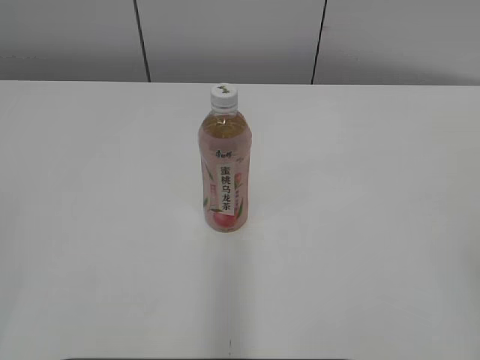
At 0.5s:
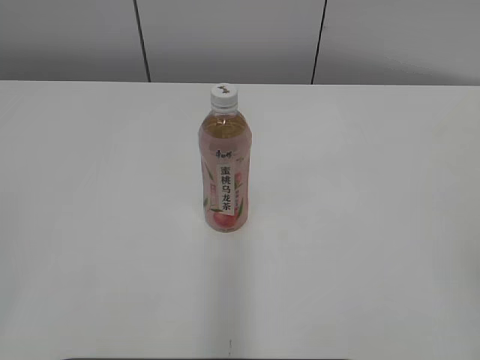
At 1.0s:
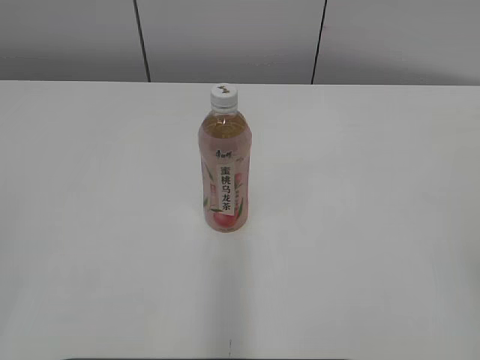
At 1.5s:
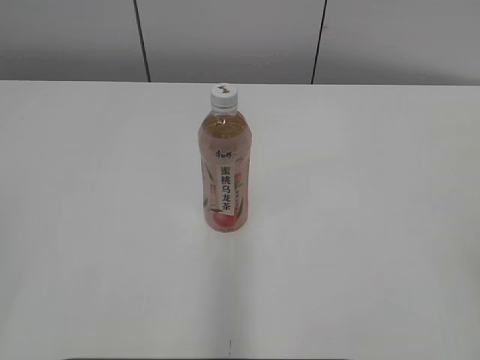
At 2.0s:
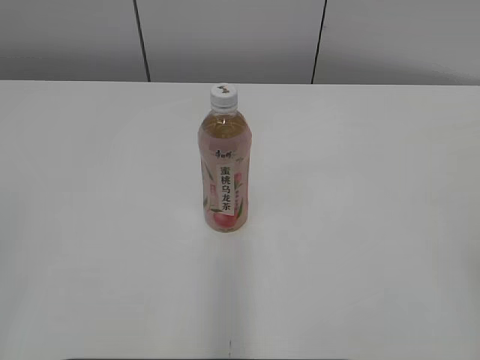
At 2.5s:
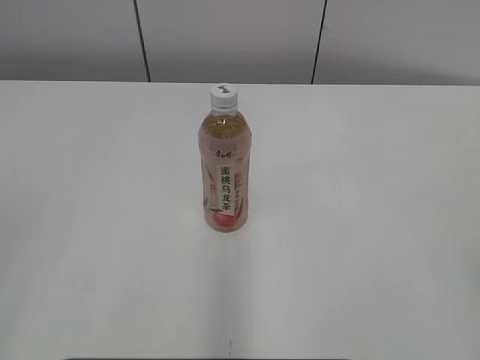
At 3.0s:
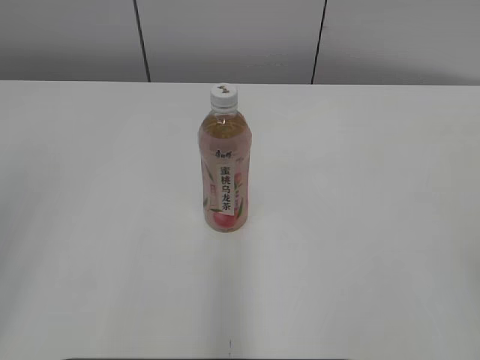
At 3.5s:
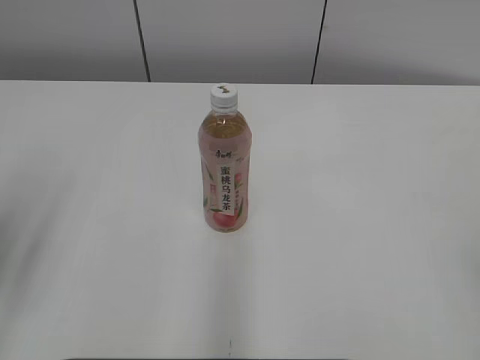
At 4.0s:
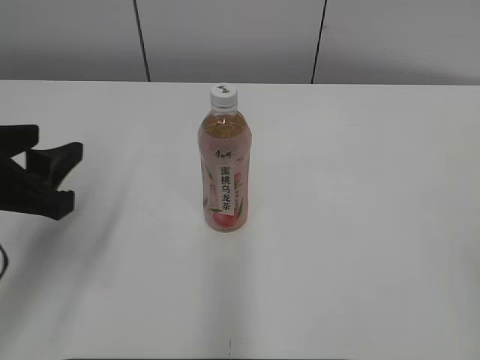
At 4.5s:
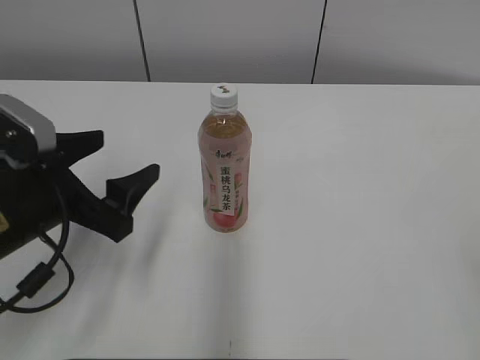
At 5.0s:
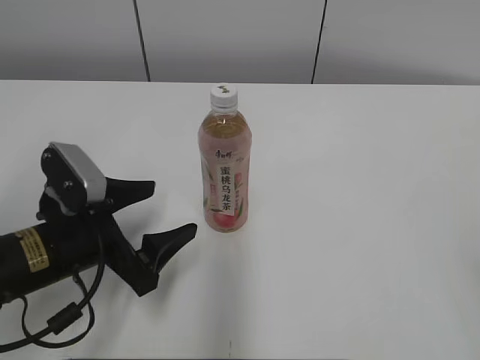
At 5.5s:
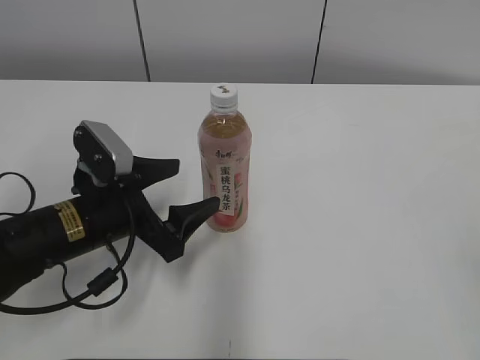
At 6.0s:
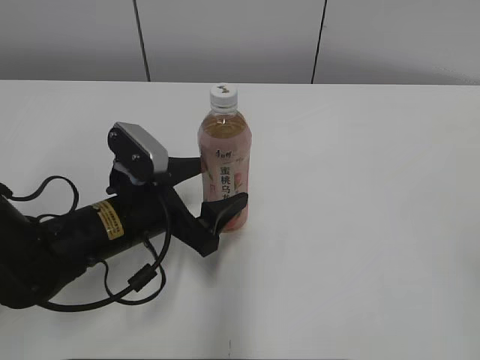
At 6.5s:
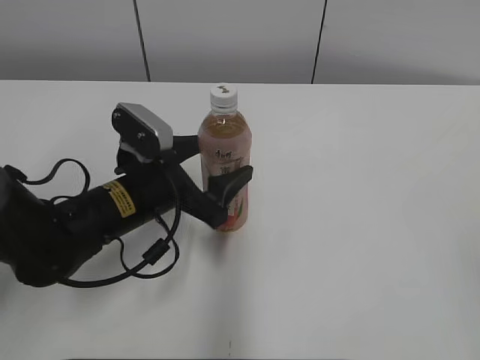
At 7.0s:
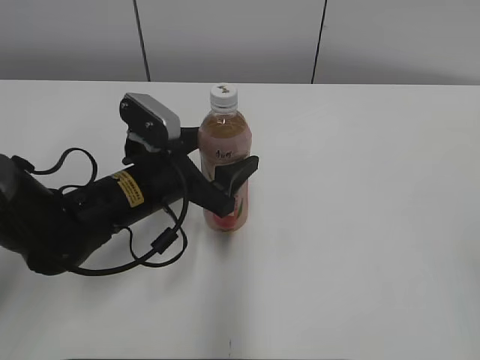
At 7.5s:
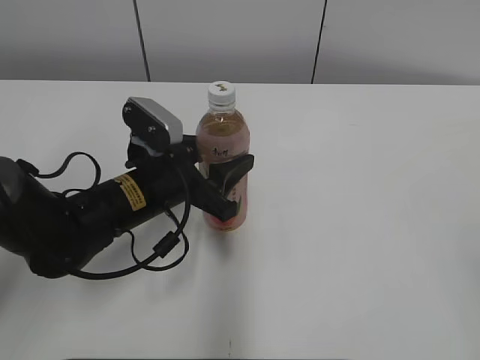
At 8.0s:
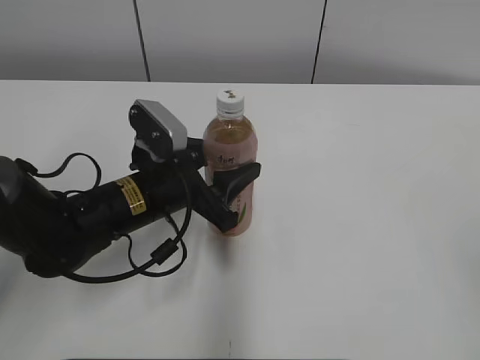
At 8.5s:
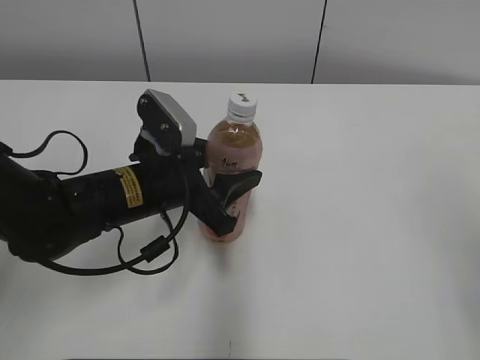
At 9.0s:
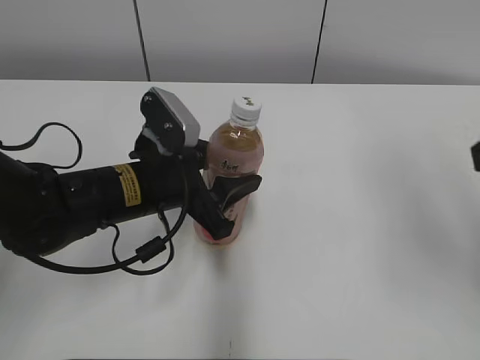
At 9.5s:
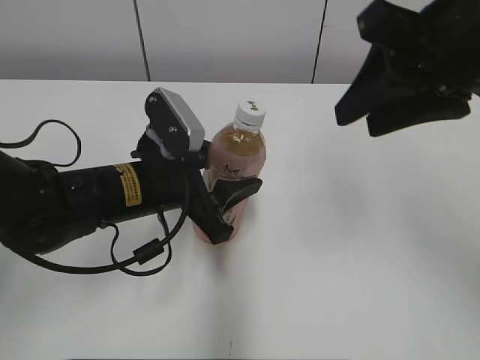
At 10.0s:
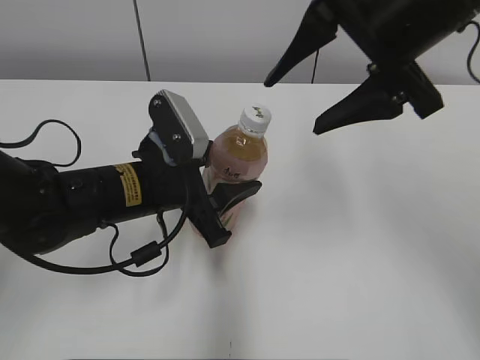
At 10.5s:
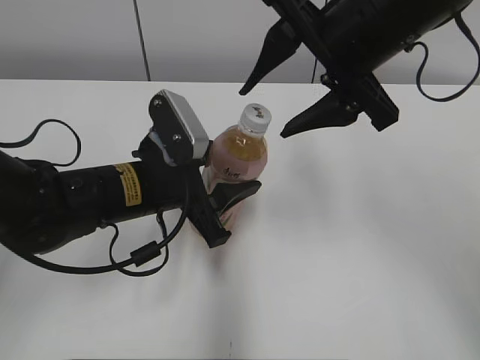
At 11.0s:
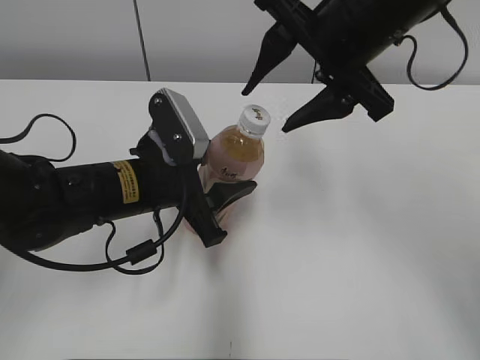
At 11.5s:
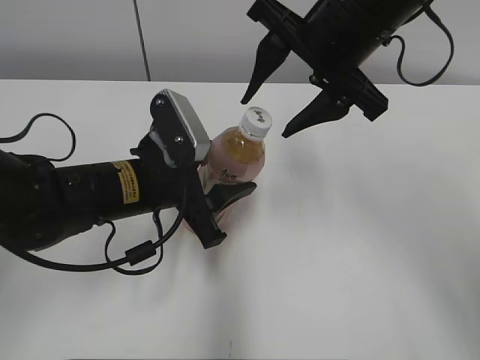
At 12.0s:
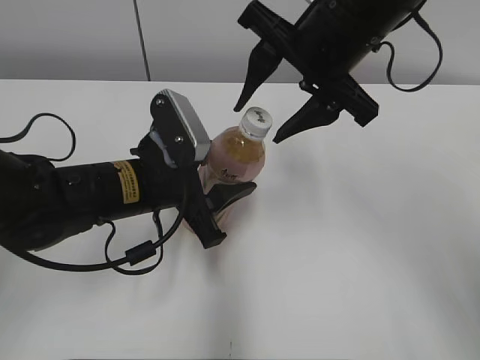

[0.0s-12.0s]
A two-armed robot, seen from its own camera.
Step, 0.0s to 7.5s: Grab the Peach Oolong Tea with the left hand.
2.0s to 4.0s: The left gripper goes about 20 cm forward and downward.
4.0s to 6.0s: The left gripper heads to the right, downward and forward, covering about 20 cm, and opens its fingers.
6.0s to 8.0s: The left gripper closes.
8.0s to 10.0s: The right gripper heads forward and to the left, covering approximately 35 cm, and opens.
10.0s to 12.0s: The right gripper shifts by about 5 cm.

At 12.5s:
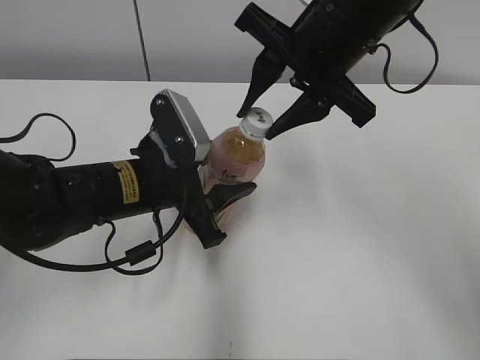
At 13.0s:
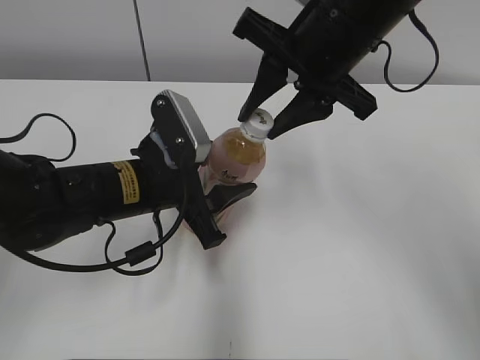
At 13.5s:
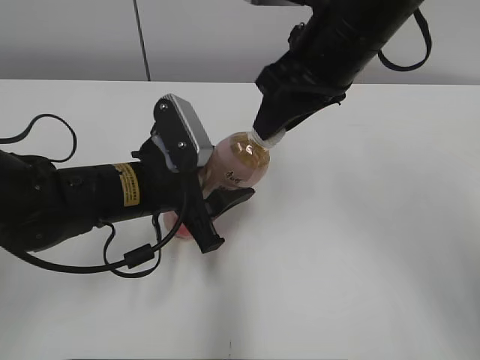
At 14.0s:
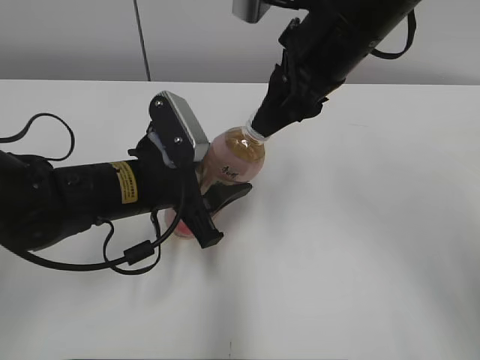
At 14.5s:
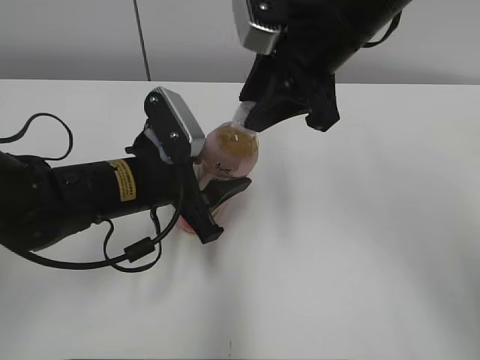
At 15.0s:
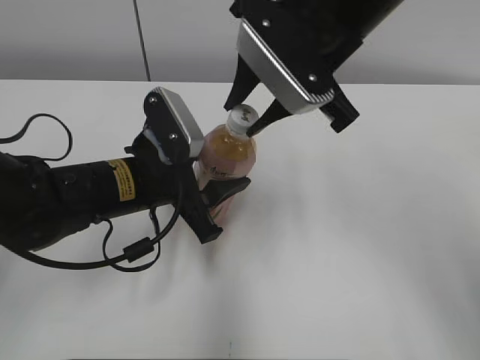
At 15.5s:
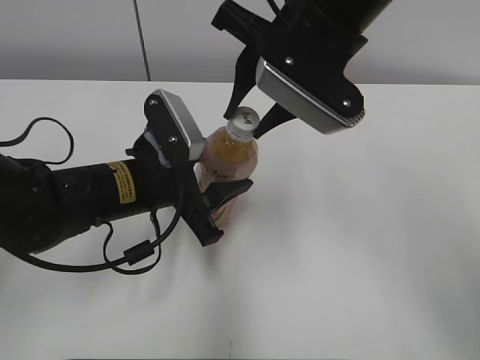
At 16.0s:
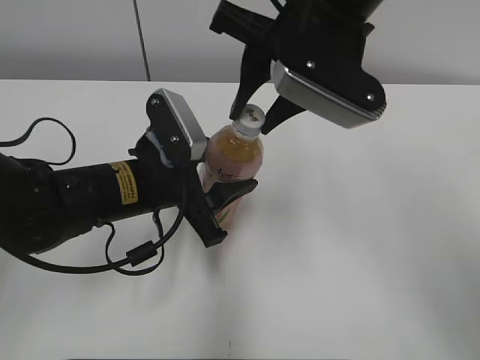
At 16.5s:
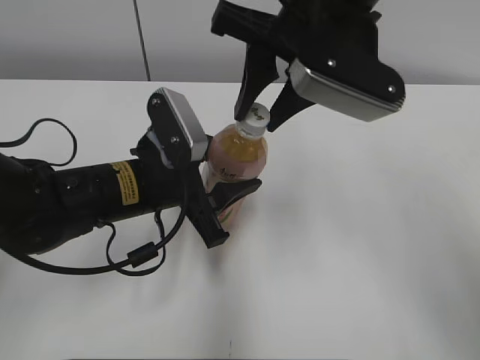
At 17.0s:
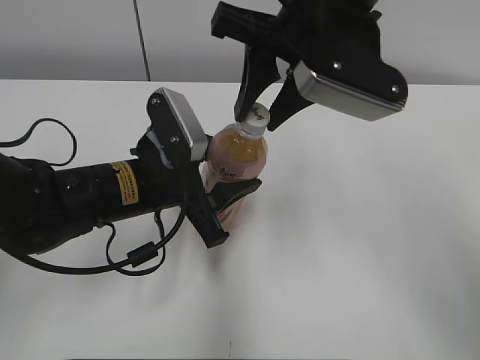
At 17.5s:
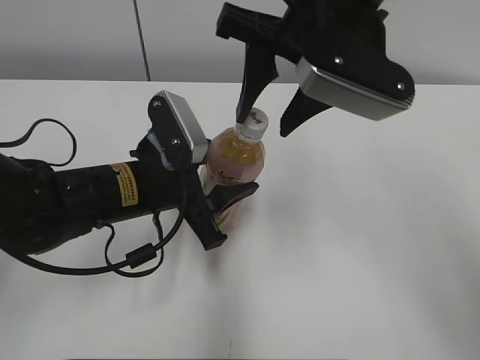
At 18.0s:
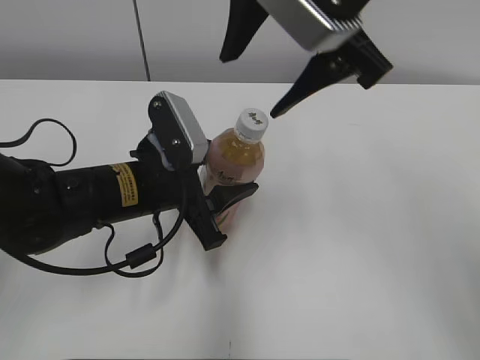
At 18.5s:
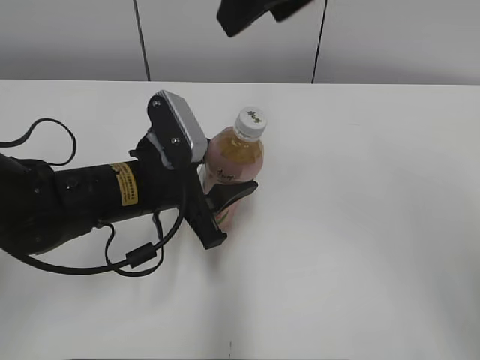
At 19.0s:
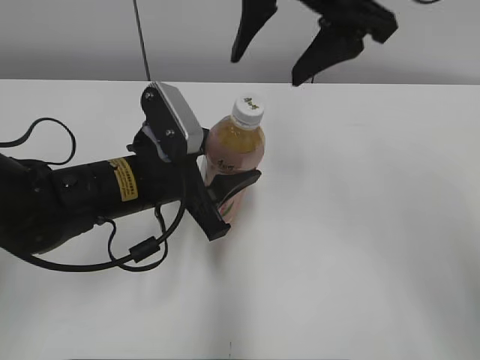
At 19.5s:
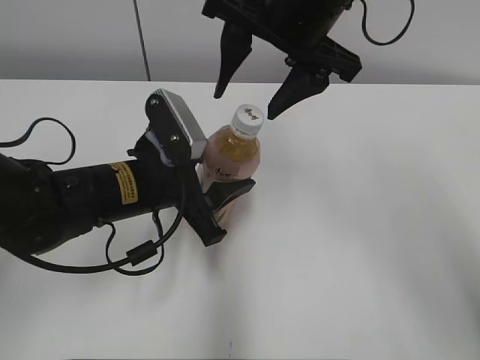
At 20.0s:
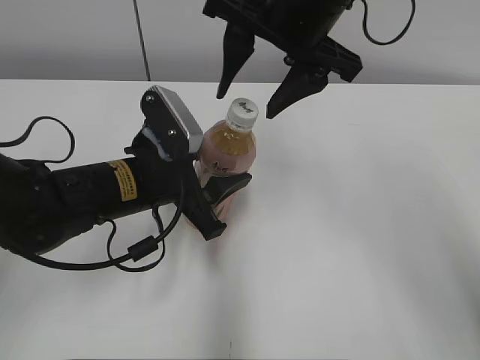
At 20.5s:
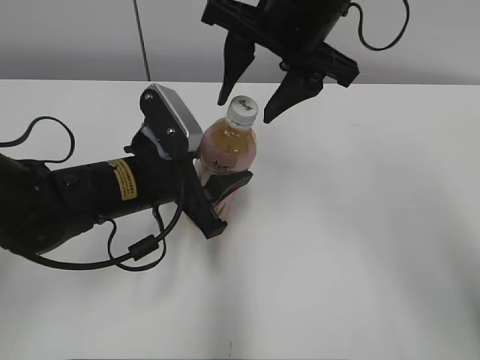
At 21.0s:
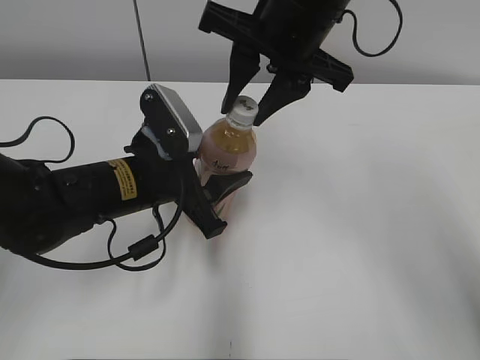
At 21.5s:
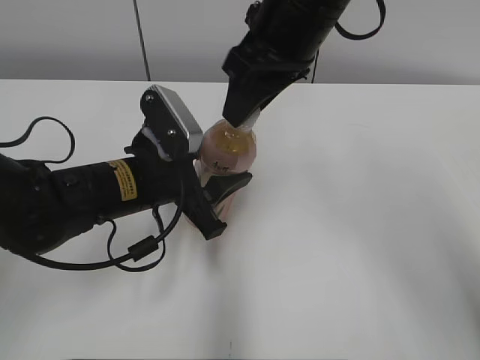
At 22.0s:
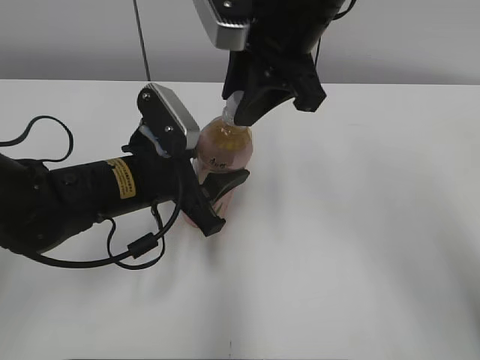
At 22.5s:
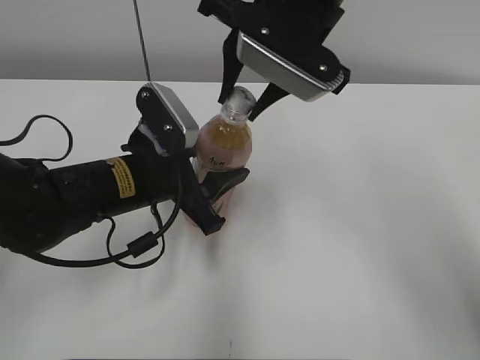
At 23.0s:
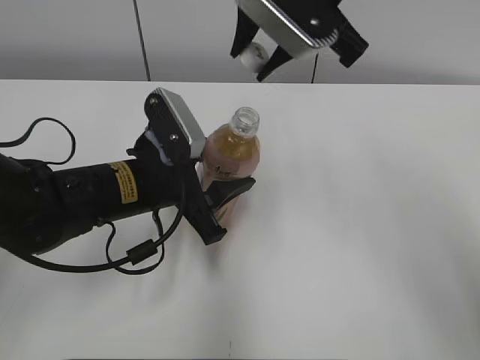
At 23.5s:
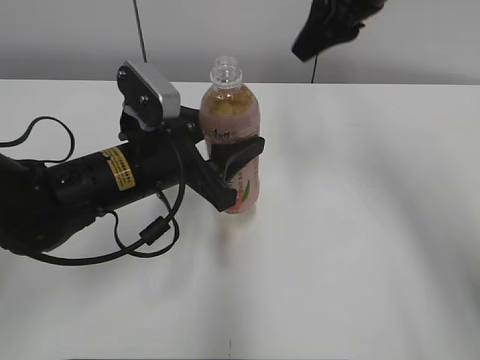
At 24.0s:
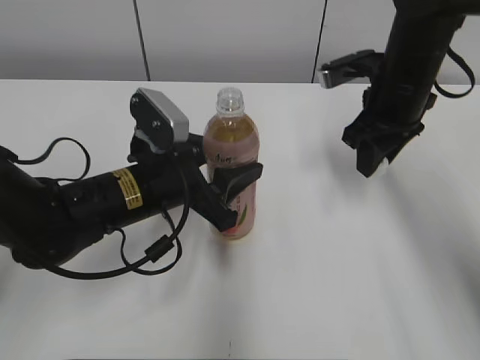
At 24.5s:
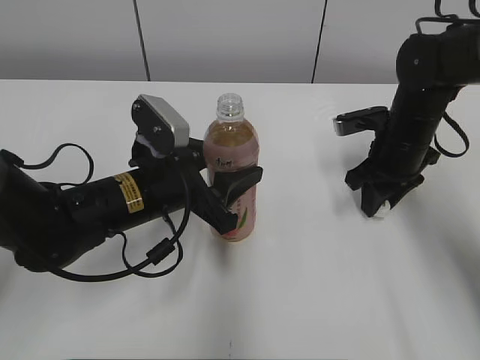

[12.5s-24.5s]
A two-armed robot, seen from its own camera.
Step, 13.0s to 22.5s: Secure the Peach Oolong Tea with the left hand.
16.5s to 18.5s: The right gripper goes some 5 cm upward, and opens its fingers.
18.5s to 20.5s: The right gripper heads downward, covering about 10 cm, and closes up.
20.5s to 22.5s: The right gripper closes.
22.5s to 24.5s: The right gripper goes some 25 cm downward and to the right.

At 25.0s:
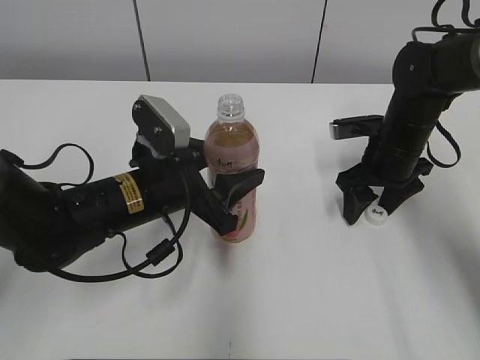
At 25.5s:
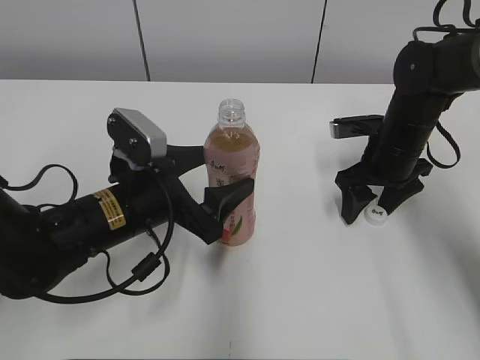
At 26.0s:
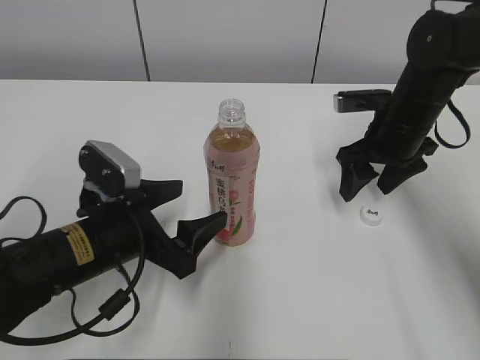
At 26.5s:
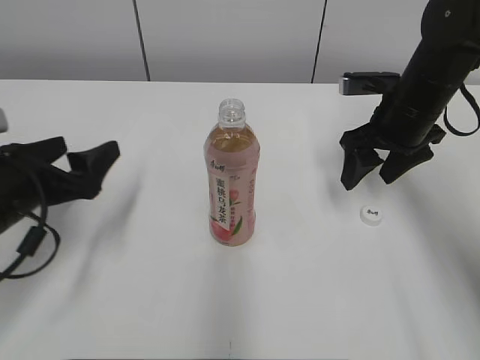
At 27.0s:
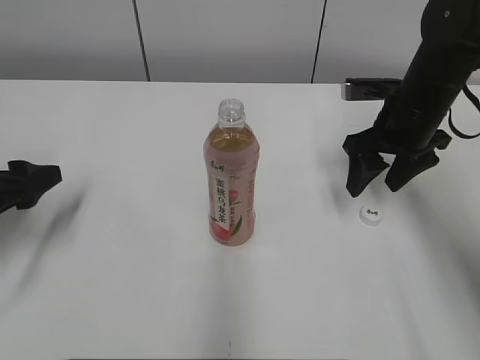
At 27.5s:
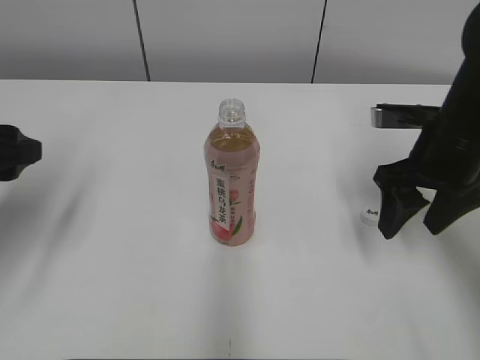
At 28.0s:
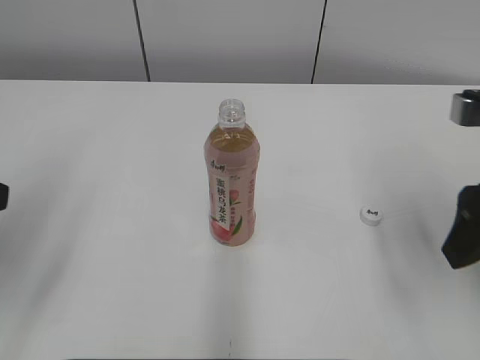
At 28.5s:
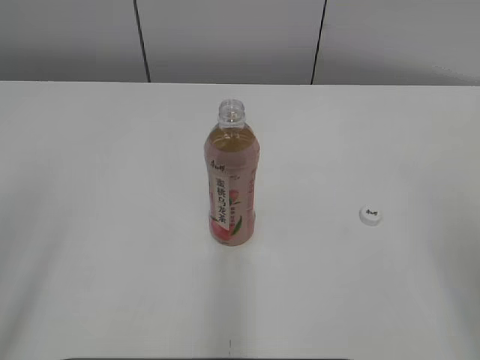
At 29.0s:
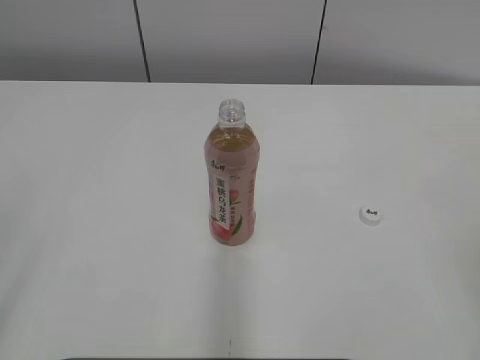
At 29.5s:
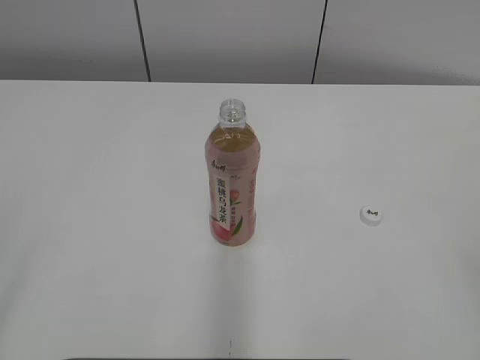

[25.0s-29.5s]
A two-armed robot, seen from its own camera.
25.0s to 27.0s: The left gripper is displaced to the left by approximately 20 cm, and opens; the right gripper heads upward, covering approximately 5 cm.
27.0s to 29.5s: The right gripper shifts approximately 40 cm backward, and closes up; the left gripper moves backward and upward, some 30 cm.
